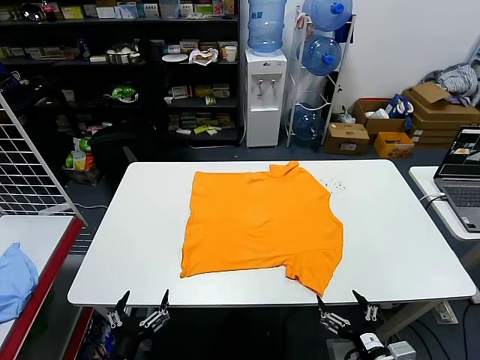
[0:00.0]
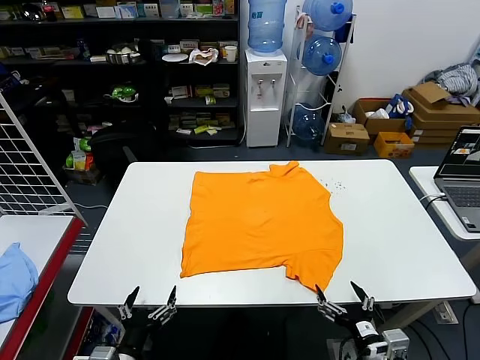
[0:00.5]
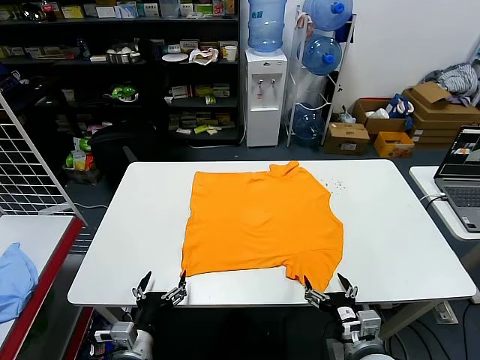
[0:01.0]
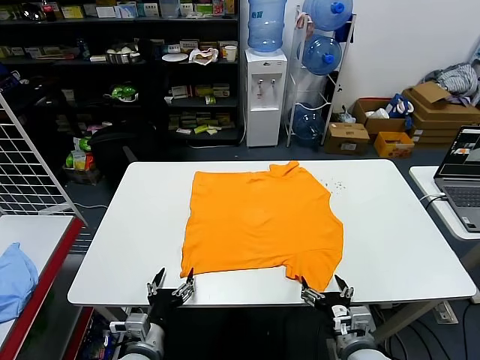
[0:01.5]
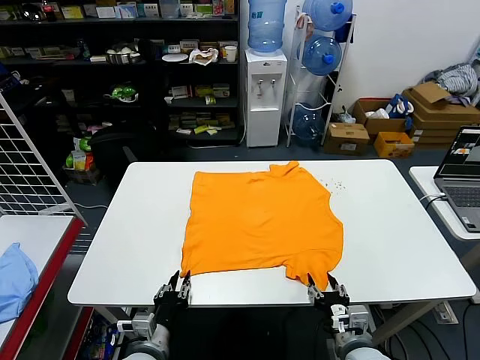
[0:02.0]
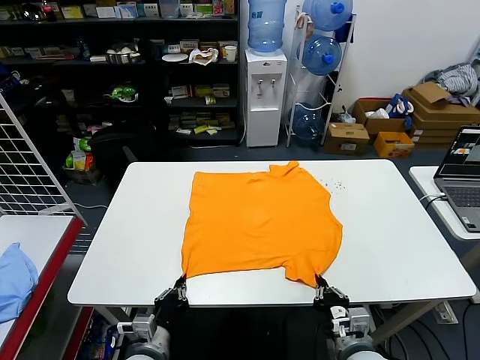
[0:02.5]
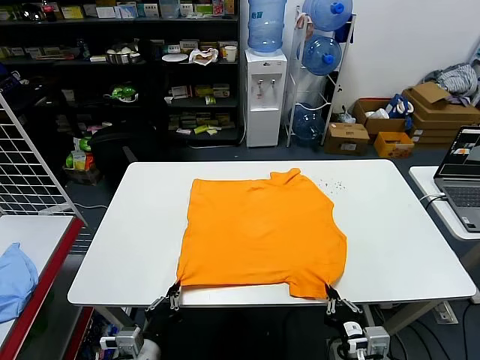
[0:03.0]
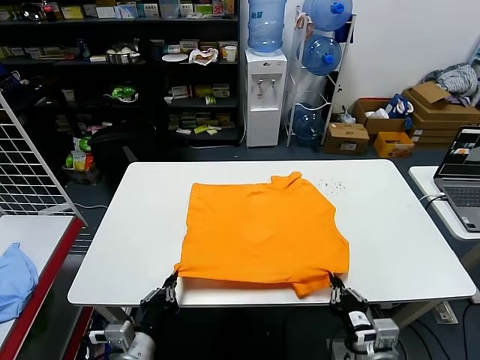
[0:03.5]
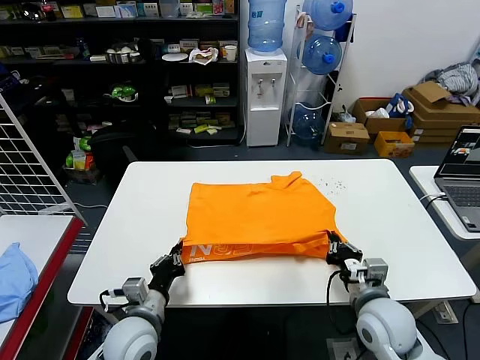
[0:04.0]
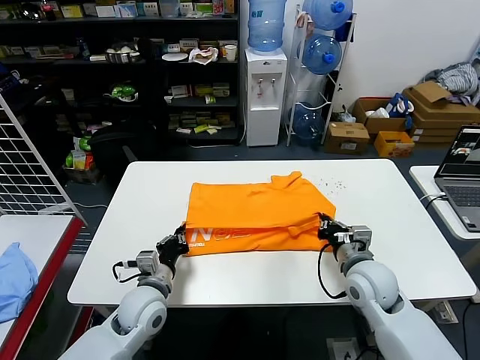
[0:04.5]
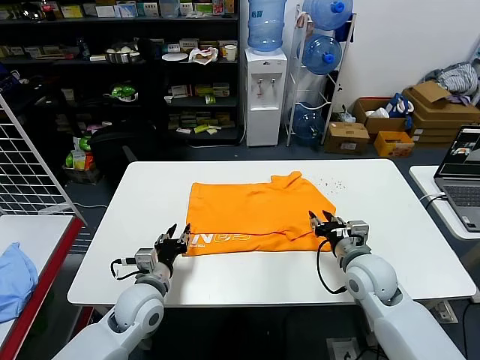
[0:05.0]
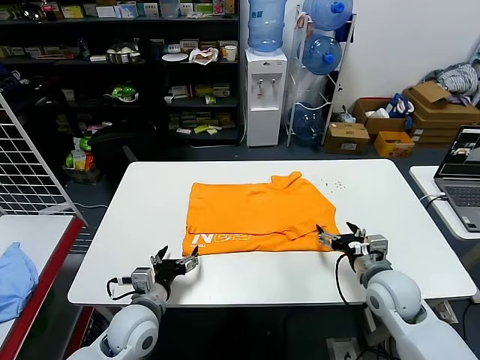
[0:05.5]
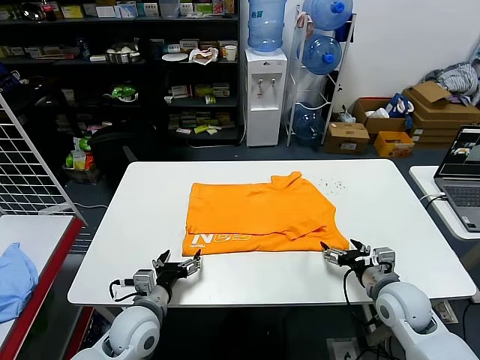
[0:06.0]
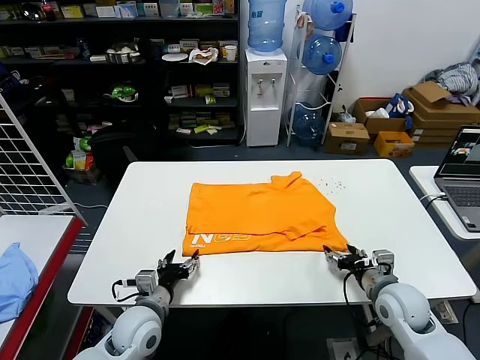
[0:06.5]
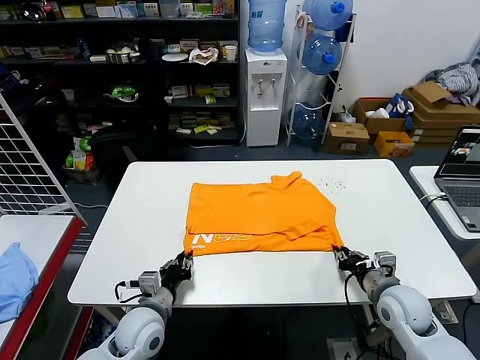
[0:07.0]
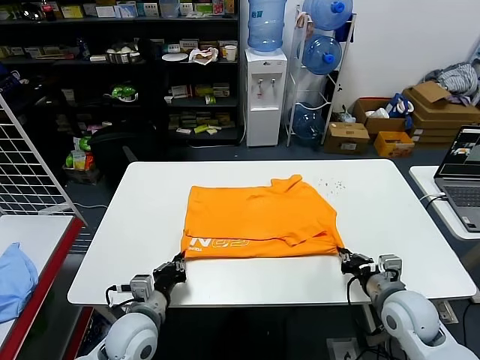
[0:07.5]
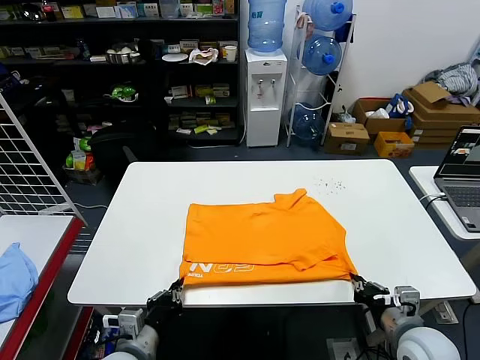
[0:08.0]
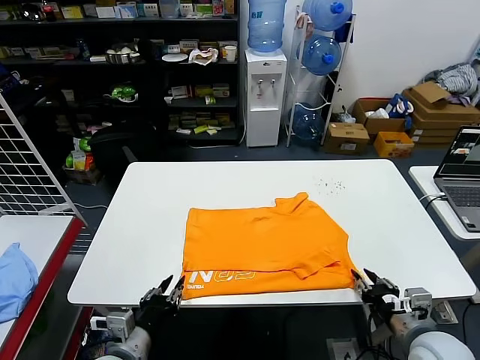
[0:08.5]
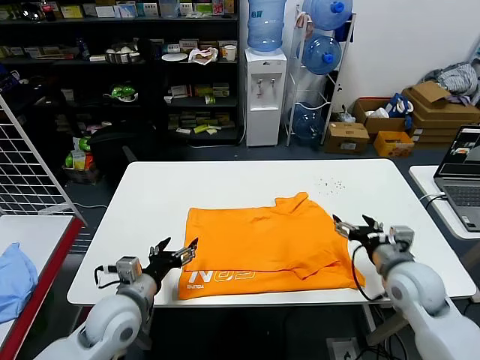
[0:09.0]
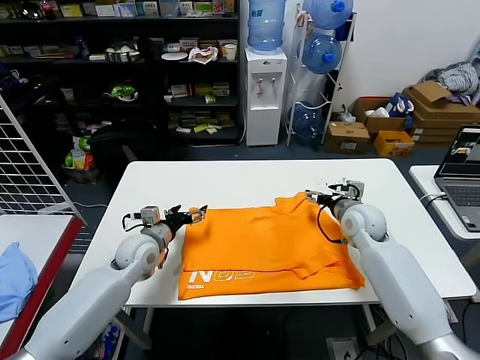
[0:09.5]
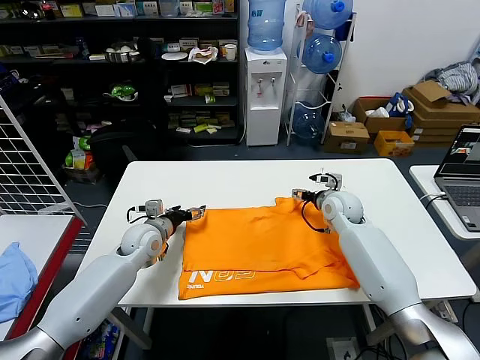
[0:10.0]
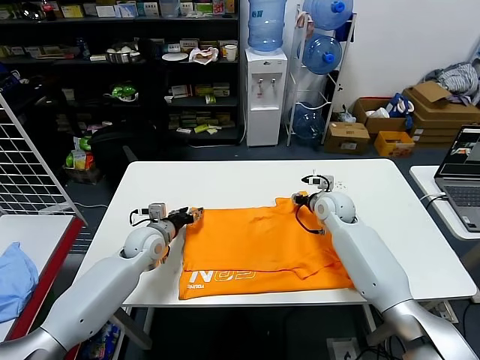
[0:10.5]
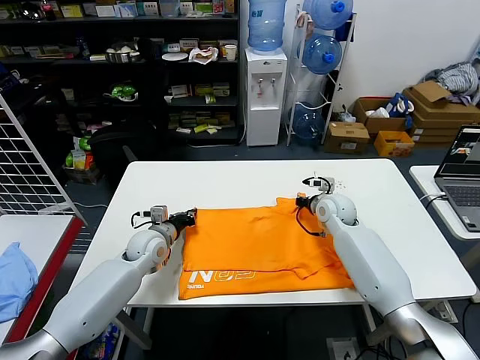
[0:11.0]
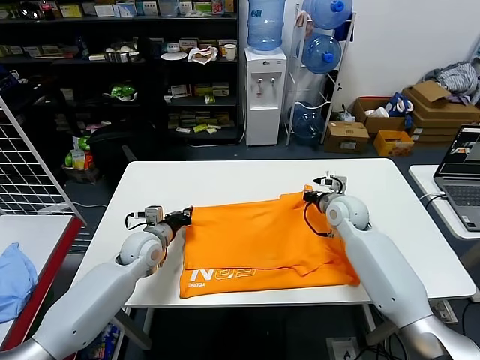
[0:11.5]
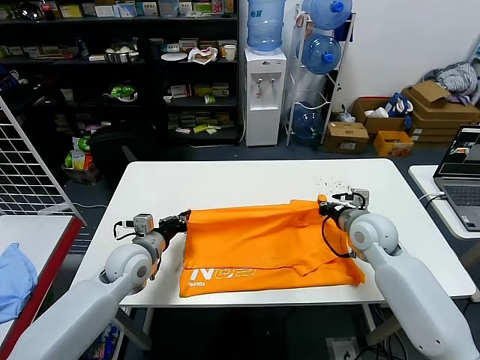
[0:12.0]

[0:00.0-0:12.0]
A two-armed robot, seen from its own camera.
Task of the whole recording: fold and organize the clothes.
Step, 0:00.0 to 0:02.5: use both grippers simultaneously to clamp the lower edge of the clothing fabric.
Step, 0:03.0 to 0:04.5: use both grippers to drag the lower edge of the fabric forward and fold it over the upper edge.
Step, 0:05.0 to 0:08.0: Drag the clothes downward with both gripper.
Step, 0:08.5 to 0:11.0: use both grippers simultaneously to clamp the upper edge of the clothing fabric.
0:02.0 to 0:04.0: The left gripper shifts roughly 10 cm upward and forward; the right gripper travels forward and upward by some 10 cm, and closes its fingers.
0:04.0 to 0:06.0: The right gripper heads to the right, covering some 5 cm, and opens its fingers. The left gripper opens up.
0:06.0 to 0:08.0: Both grippers move backward, about 10 cm. The left gripper closes up. The right gripper closes.
0:08.0 to 0:10.0: Both grippers move forward, approximately 30 cm. The left gripper opens its fingers. Meanwhile the right gripper opens.
0:10.0 to 0:12.0: Both grippers travel together backward, some 10 cm. The right gripper closes up. Meanwhile the left gripper closes its fingers.

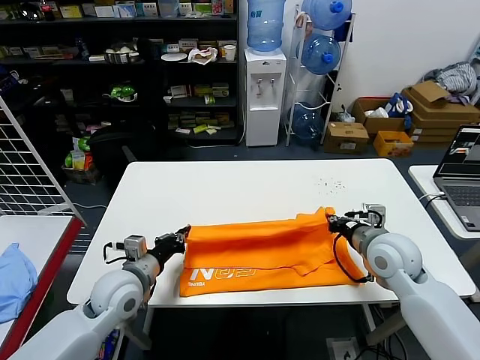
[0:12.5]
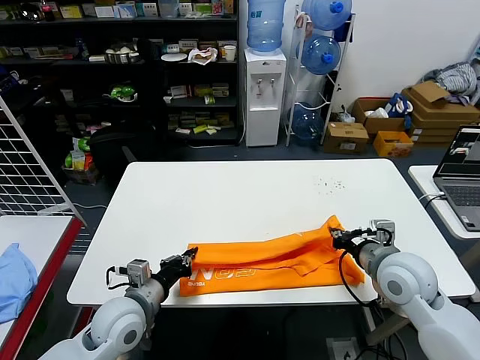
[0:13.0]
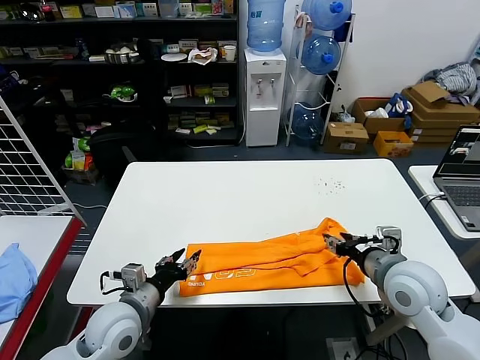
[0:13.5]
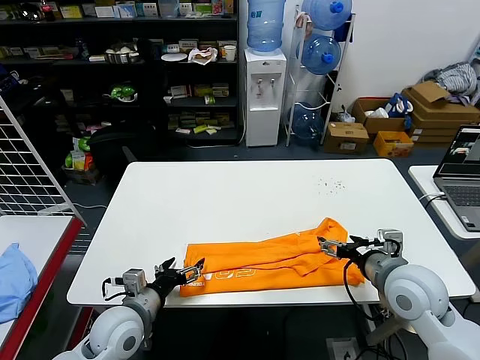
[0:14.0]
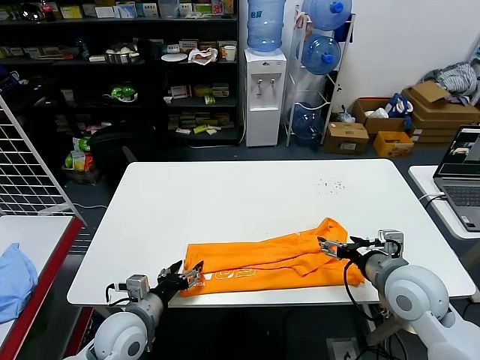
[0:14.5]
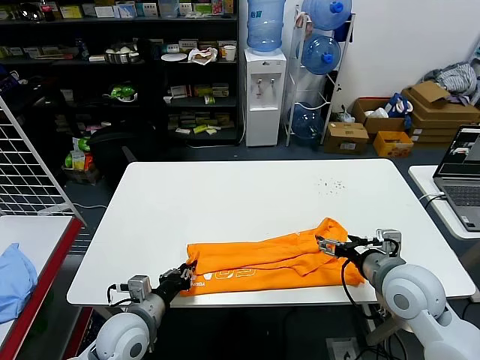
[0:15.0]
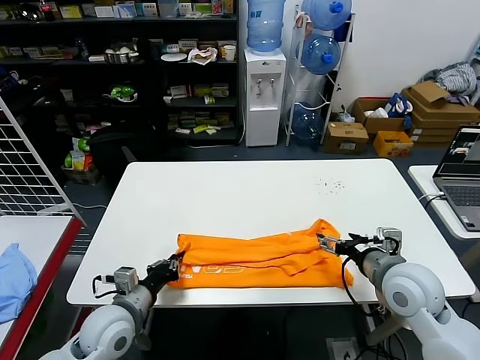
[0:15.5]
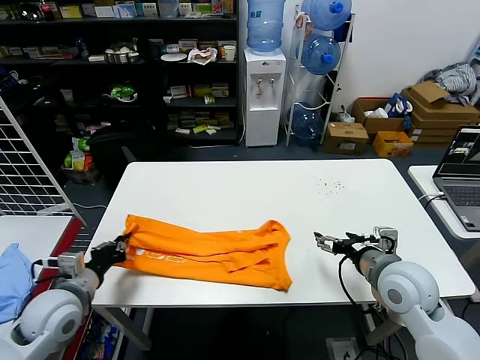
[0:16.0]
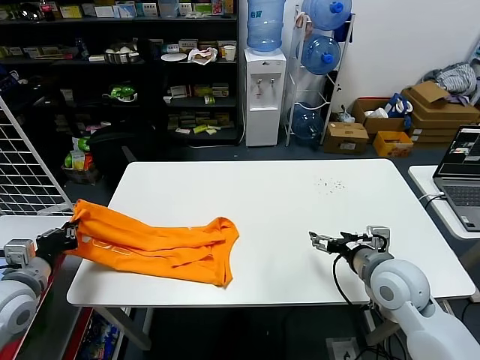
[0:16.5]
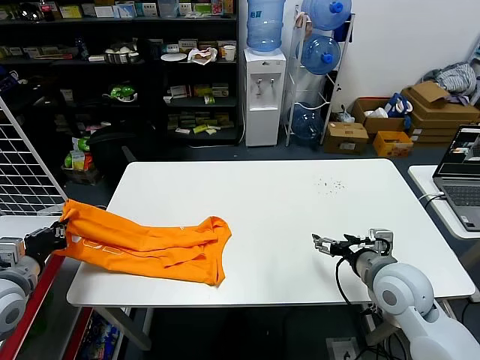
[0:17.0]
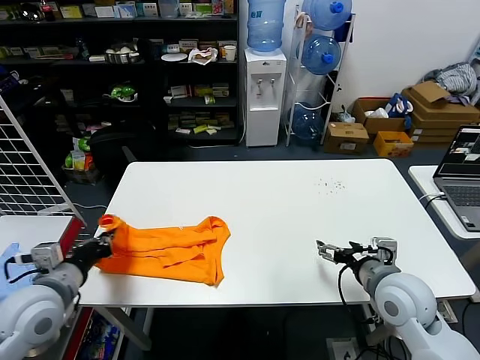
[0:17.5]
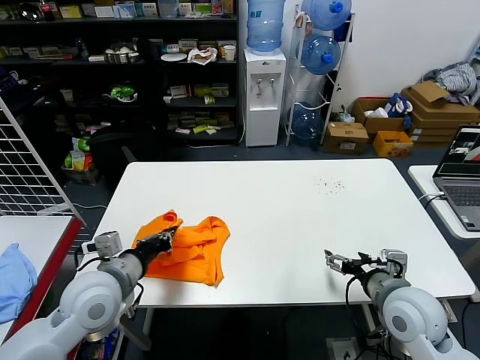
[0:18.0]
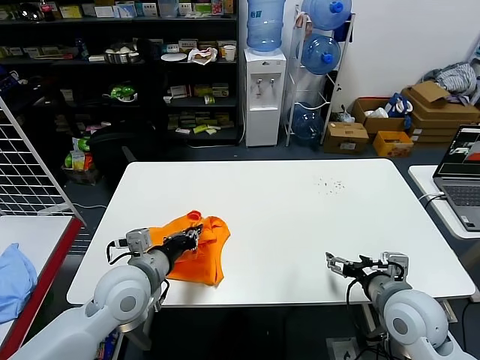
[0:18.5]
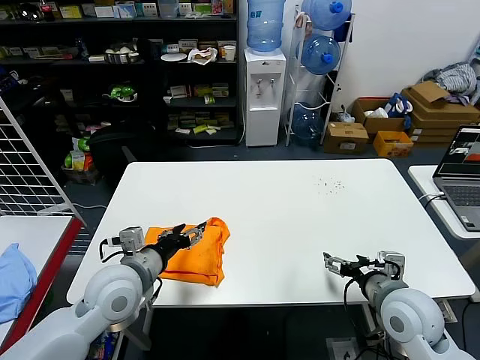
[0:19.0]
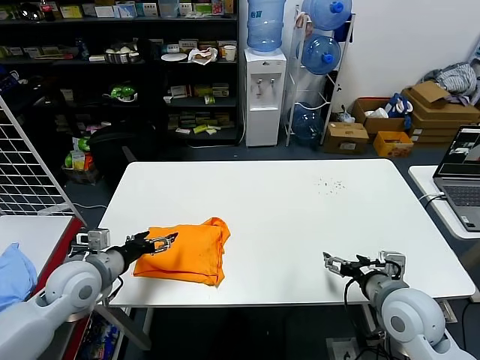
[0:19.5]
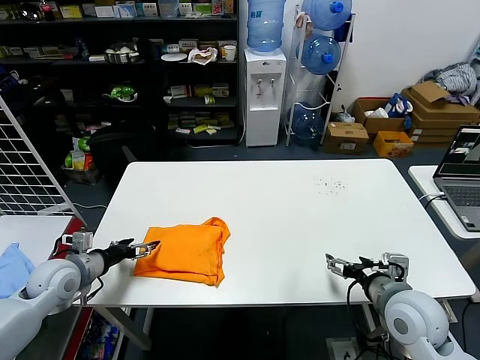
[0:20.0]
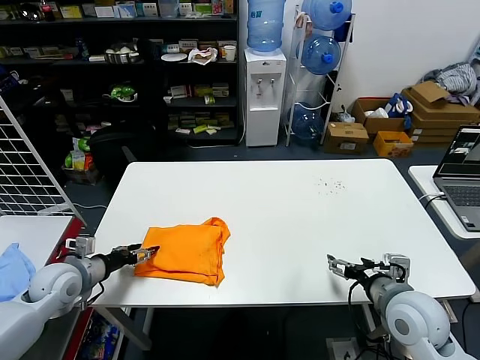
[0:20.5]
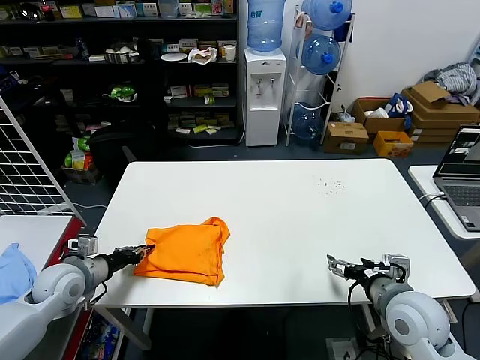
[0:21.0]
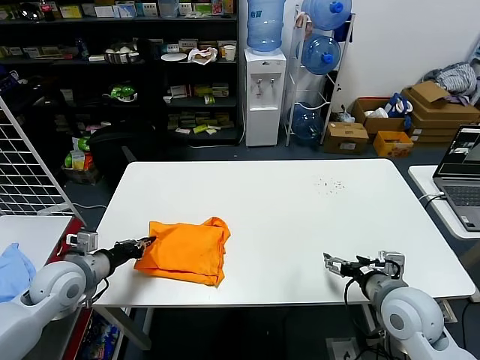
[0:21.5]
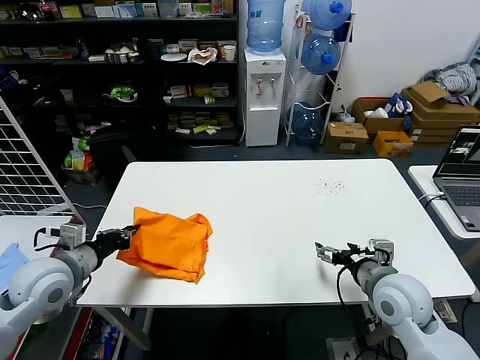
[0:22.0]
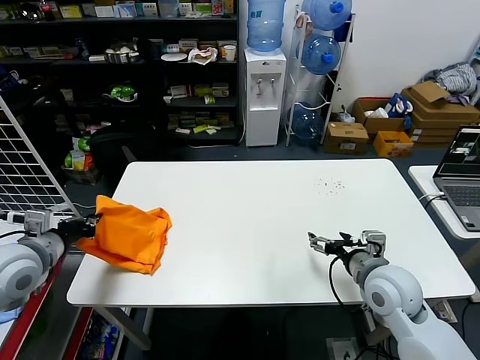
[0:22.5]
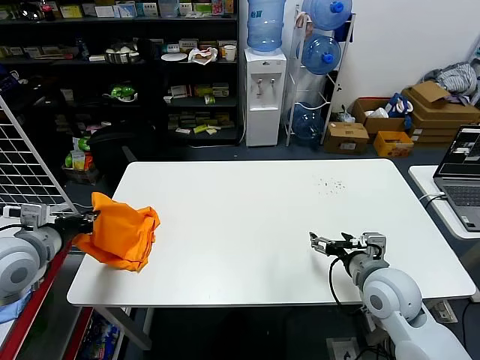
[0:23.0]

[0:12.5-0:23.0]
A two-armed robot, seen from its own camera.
Task of the whole recording: fold and organize the clothes.
Step, 0:13.5 to 0:15.0: use the left gripper to clamp the left edge of the fabric.
Step, 0:15.5 to 0:18.5: use the left gripper to drag the left edge of the fabric to the left and folds it over the right edge.
0:12.5 to 0:14.5: The two grippers go about 5 cm backward. The right gripper opens its fingers. The left gripper opens up.
0:14.5 to 0:16.5: The left gripper is displaced to the left and upward by some 20 cm, and closes its fingers.
0:16.5 to 0:19.0: The left gripper moves to the right, roughly 20 cm, and opens its fingers. Meanwhile the right gripper ends up about 5 cm from where it was.
0:19.0 to 0:21.0: The left gripper goes some 20 cm to the left and downward, and closes up.
0:21.0 to 0:23.0: The left gripper heads upward, covering approximately 15 cm; the right gripper moves some 5 cm.

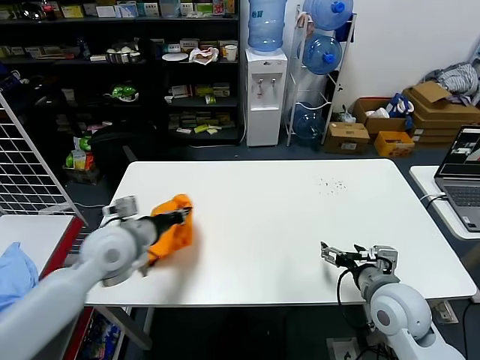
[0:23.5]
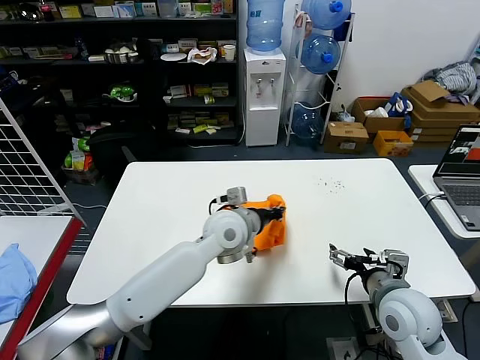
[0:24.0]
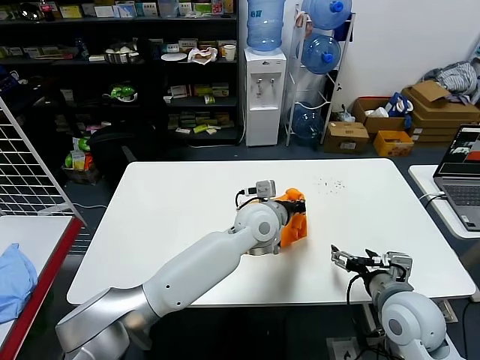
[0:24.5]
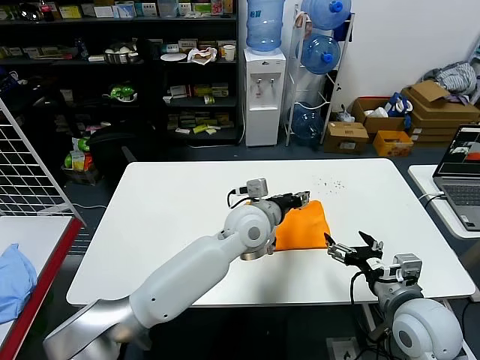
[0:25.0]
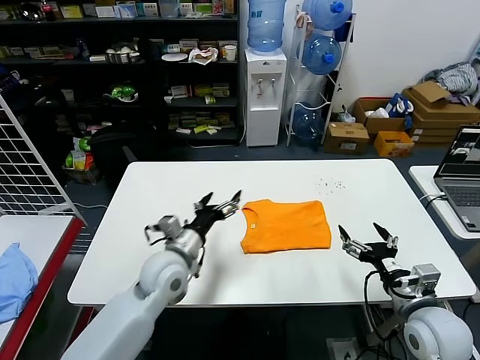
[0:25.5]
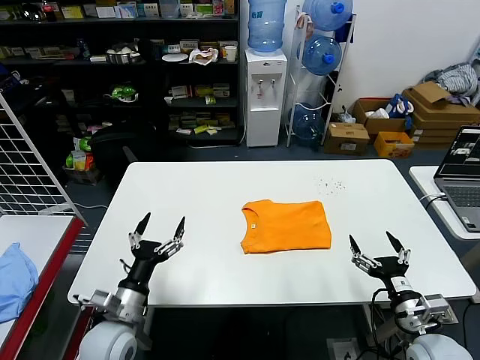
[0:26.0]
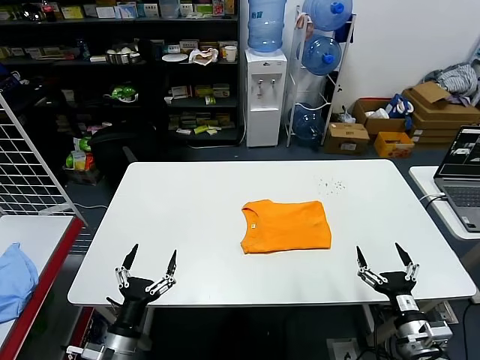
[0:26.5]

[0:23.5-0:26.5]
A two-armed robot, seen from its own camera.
Task of the whole recording: fold and organize the clothes.
0:23.5 to 0:25.0: The left gripper heads to the right, covering about 30 cm, and opens its fingers.
0:25.0 to 0:26.5: The left gripper moves to the left, backward and downward, roughly 40 cm, and opens; the right gripper is displaced downward and backward by roughly 15 cm.
